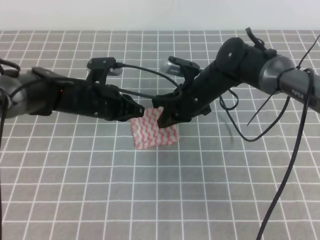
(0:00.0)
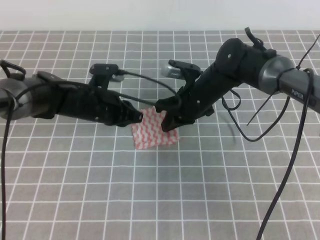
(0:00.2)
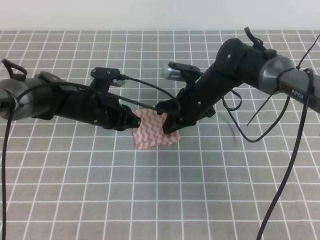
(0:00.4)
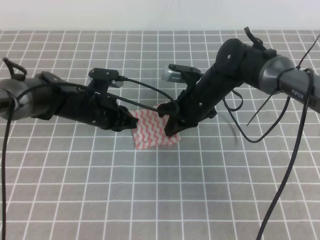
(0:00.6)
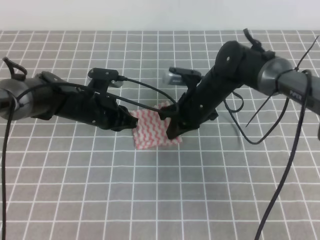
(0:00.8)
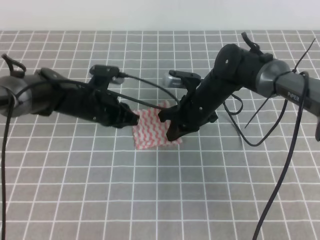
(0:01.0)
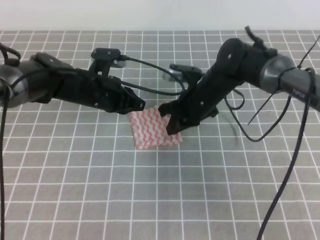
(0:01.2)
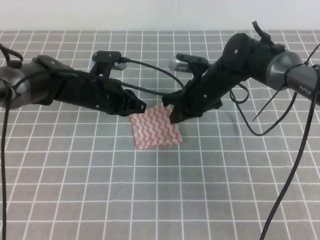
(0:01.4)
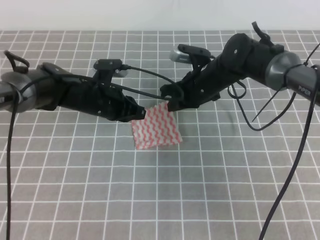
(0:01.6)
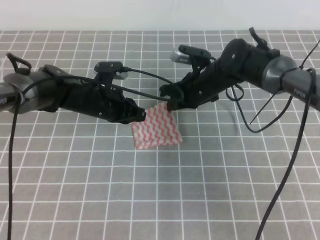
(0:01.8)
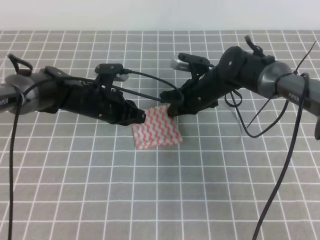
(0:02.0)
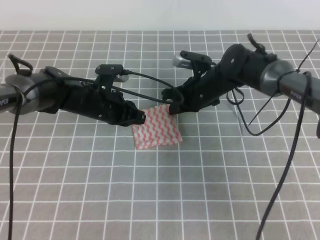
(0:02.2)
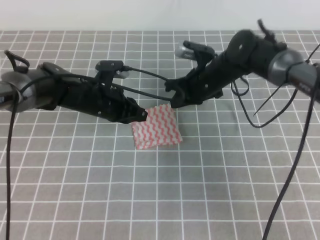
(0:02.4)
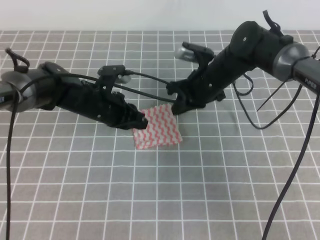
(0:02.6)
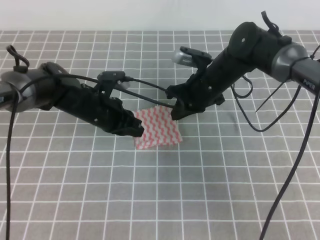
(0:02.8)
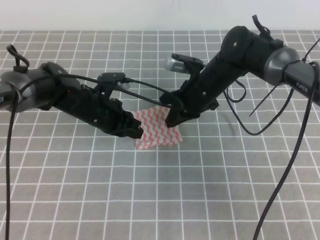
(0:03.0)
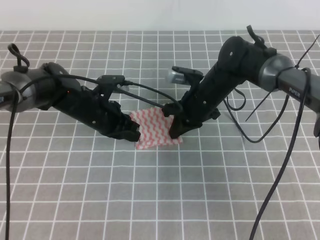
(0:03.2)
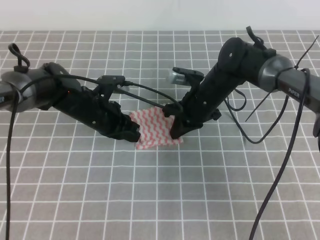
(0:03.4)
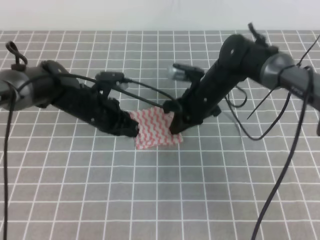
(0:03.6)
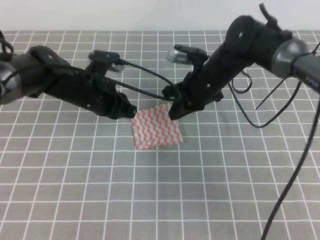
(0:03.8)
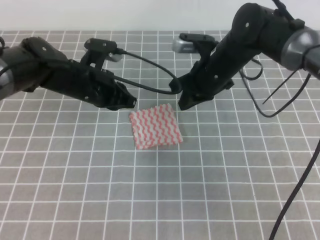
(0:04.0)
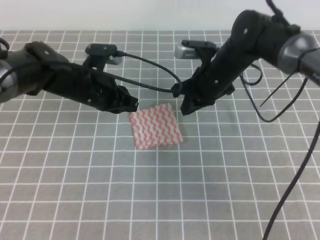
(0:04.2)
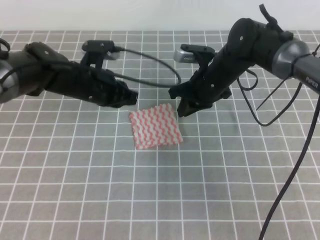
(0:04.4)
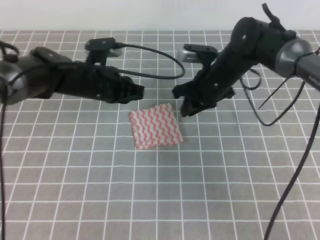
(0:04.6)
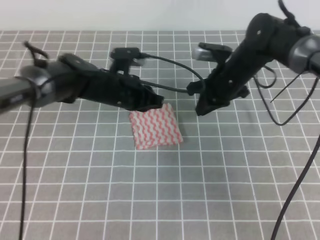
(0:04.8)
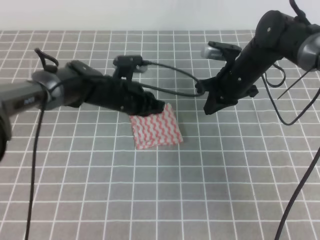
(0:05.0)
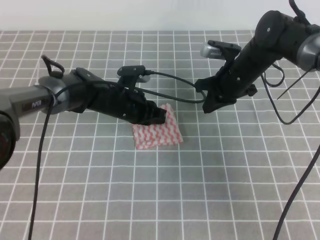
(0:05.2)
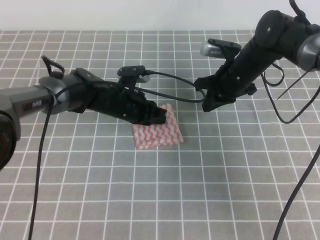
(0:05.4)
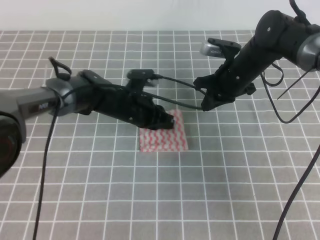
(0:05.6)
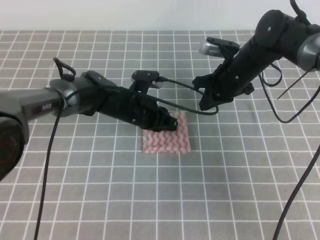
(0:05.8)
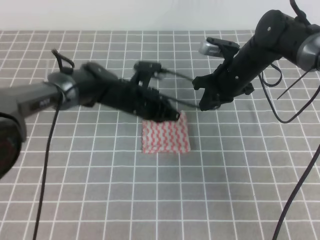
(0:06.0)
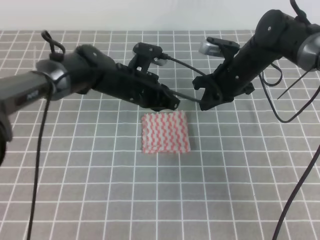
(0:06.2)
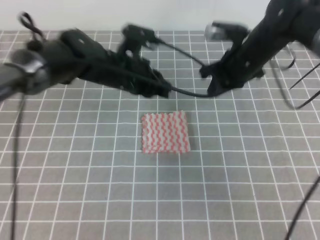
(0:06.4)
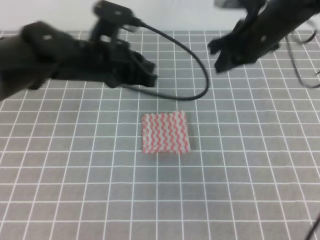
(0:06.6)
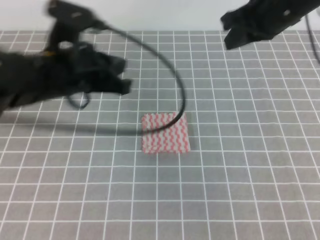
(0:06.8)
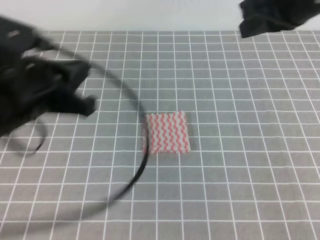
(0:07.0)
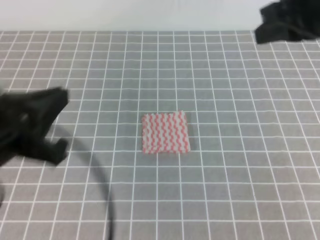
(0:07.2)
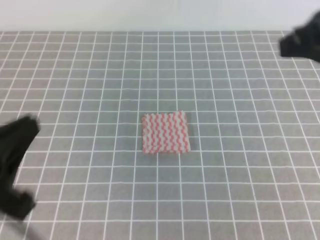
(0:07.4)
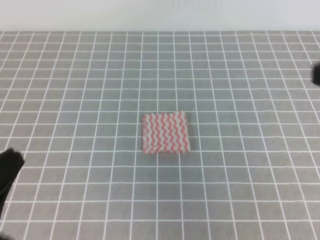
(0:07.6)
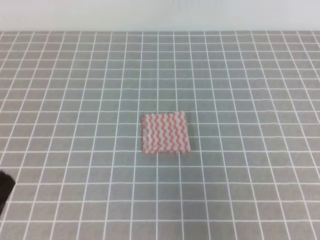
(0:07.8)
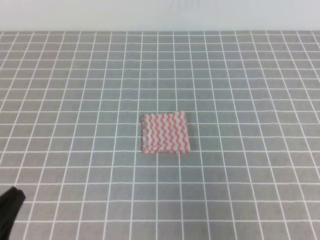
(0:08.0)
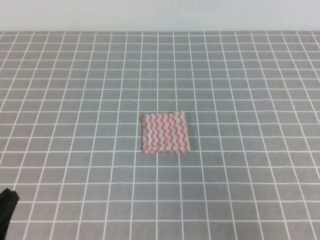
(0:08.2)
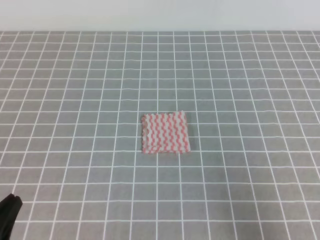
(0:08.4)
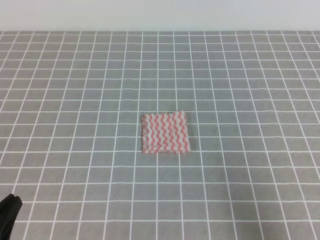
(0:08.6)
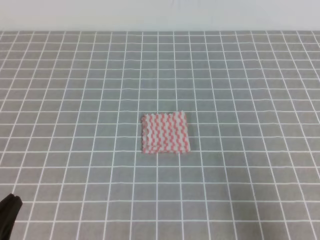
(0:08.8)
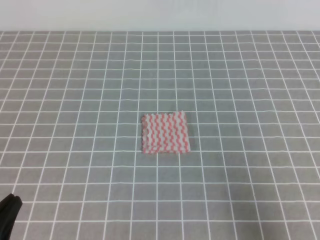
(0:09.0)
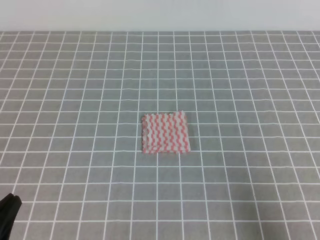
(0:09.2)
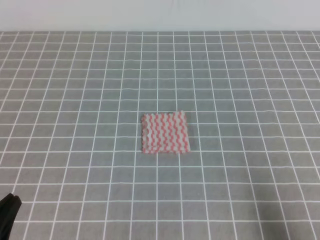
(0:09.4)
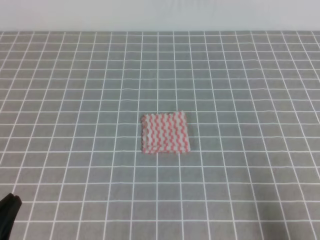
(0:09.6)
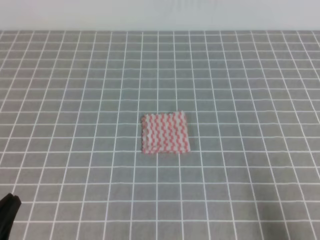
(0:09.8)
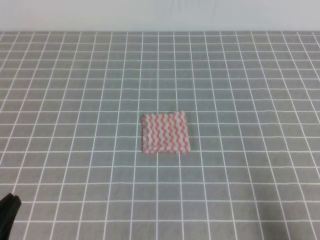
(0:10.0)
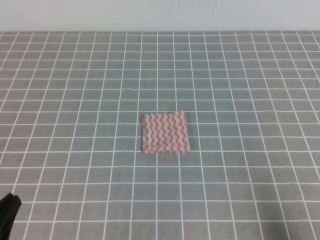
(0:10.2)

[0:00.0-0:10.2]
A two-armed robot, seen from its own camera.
0:00.0 to 0:03.0: The grippers make only small movements.
0:03.0 to 0:04.4: The left gripper moves upward, some 5 cm.
0:04.4 to 0:05.8: The left gripper travels to the right and downward by approximately 10 cm.
0:05.8 to 0:07.2: The left gripper heads backward, upward and to the left, covering approximately 35 cm. The right gripper goes some 25 cm upward and backward.
0:07.2 to 0:08.8: The left gripper moves downward, backward and to the left, some 15 cm, while the right gripper is displaced backward, downward and to the right by approximately 30 cm.
0:08.8 to 0:10.2: The right gripper goes some 5 cm downward.
